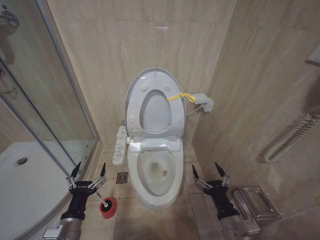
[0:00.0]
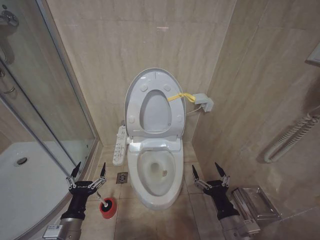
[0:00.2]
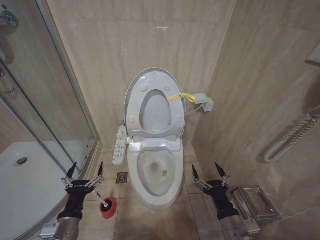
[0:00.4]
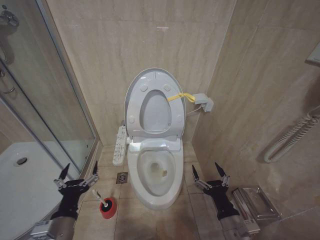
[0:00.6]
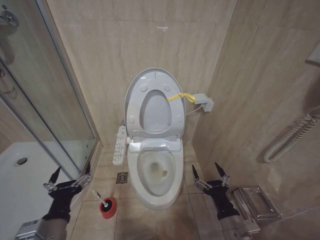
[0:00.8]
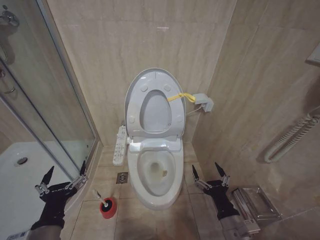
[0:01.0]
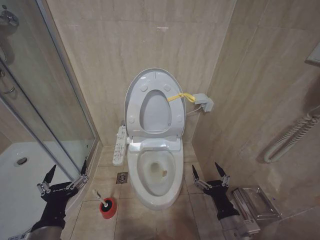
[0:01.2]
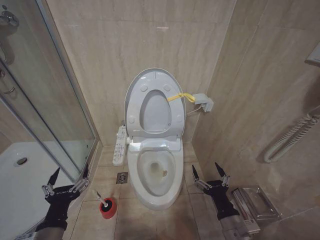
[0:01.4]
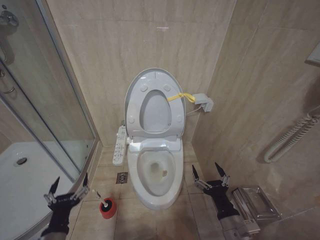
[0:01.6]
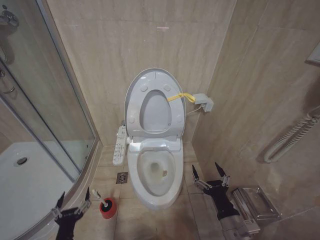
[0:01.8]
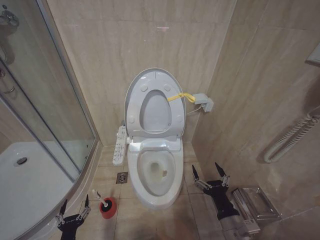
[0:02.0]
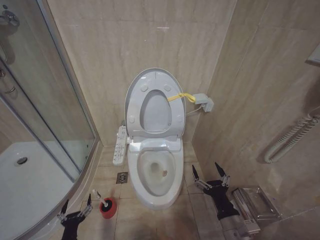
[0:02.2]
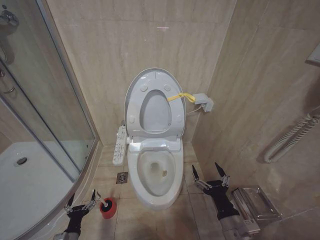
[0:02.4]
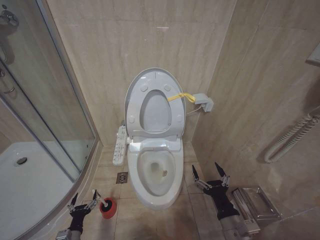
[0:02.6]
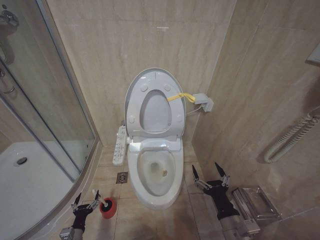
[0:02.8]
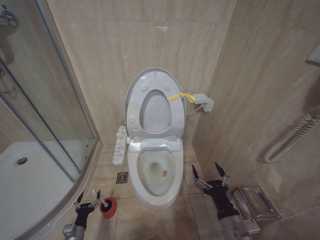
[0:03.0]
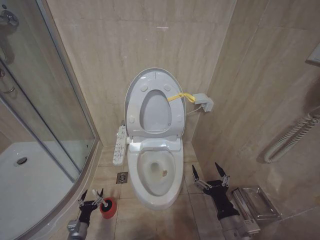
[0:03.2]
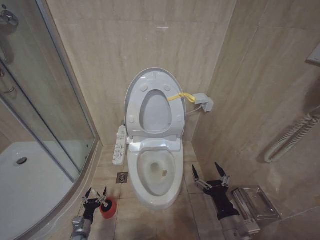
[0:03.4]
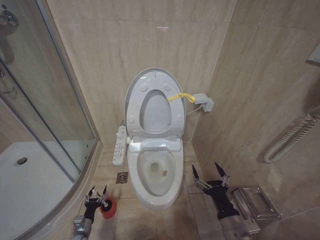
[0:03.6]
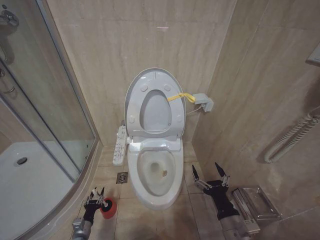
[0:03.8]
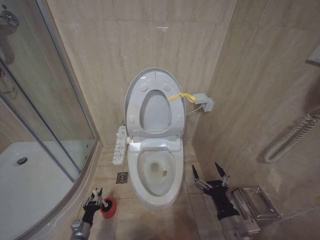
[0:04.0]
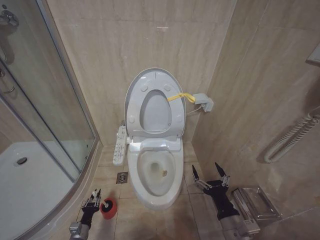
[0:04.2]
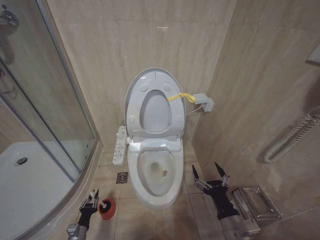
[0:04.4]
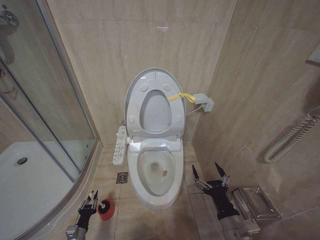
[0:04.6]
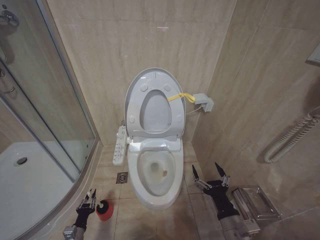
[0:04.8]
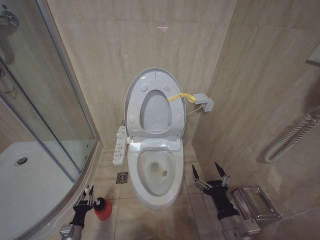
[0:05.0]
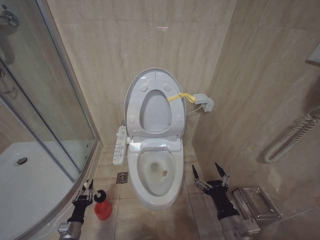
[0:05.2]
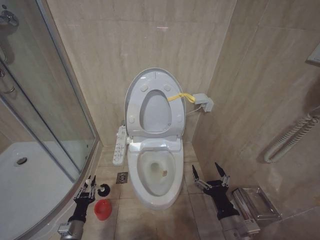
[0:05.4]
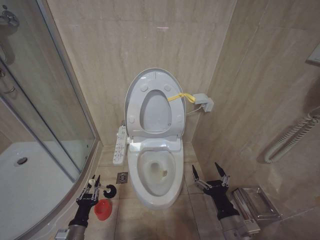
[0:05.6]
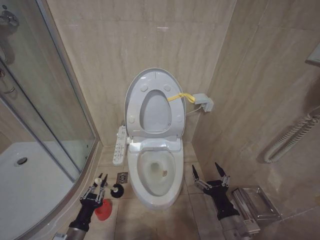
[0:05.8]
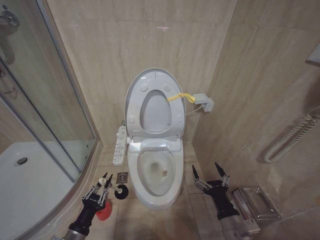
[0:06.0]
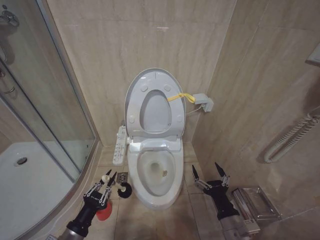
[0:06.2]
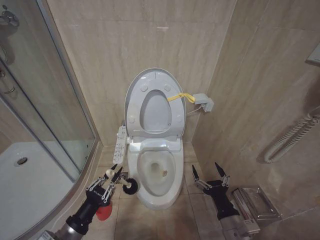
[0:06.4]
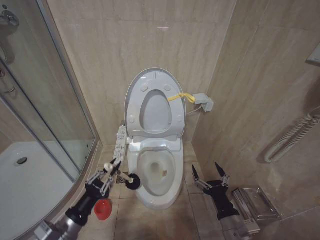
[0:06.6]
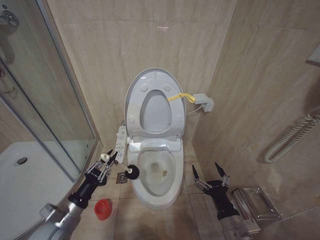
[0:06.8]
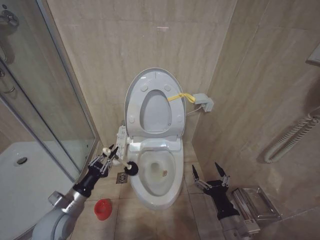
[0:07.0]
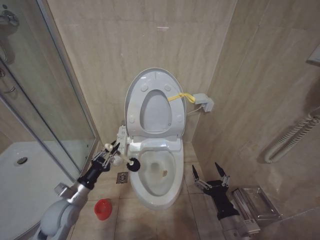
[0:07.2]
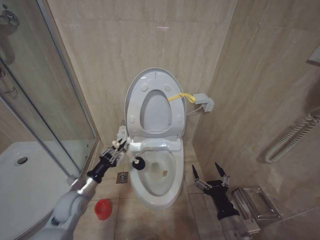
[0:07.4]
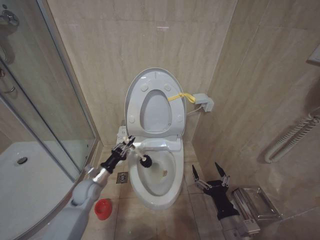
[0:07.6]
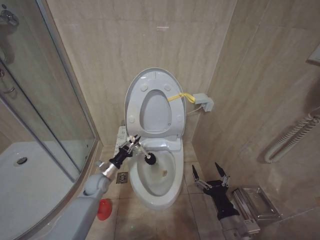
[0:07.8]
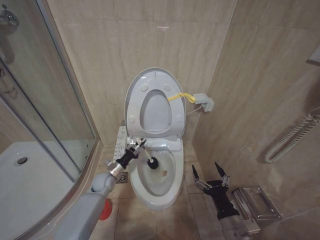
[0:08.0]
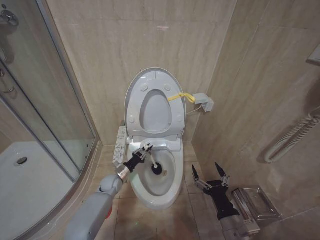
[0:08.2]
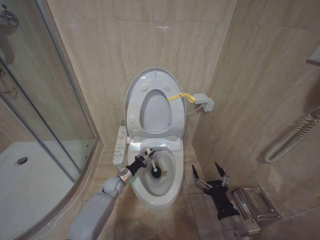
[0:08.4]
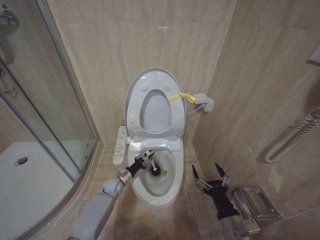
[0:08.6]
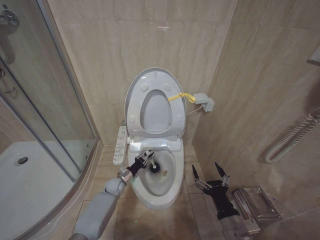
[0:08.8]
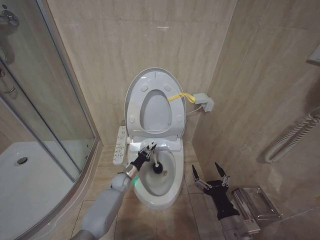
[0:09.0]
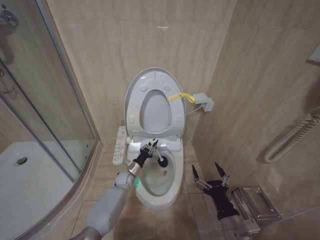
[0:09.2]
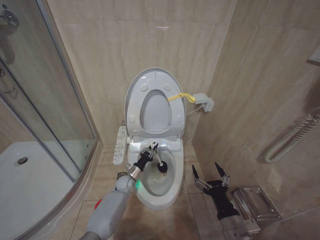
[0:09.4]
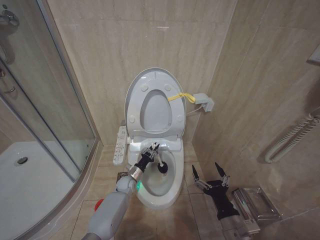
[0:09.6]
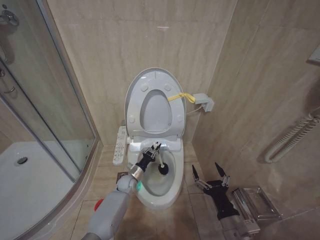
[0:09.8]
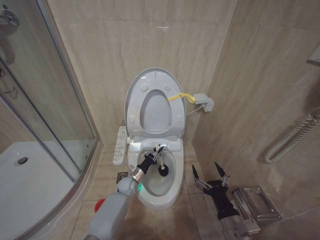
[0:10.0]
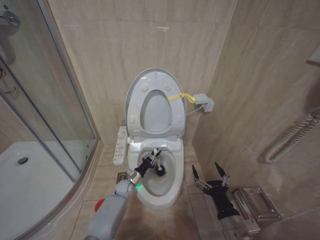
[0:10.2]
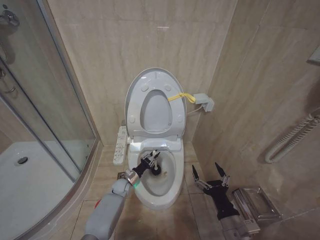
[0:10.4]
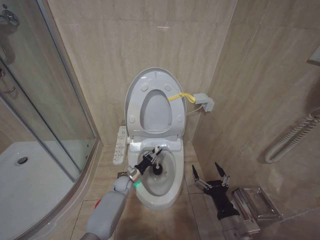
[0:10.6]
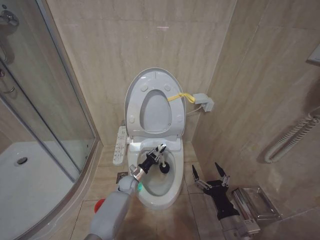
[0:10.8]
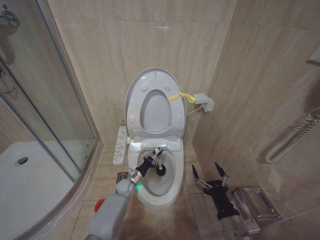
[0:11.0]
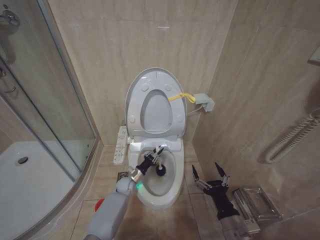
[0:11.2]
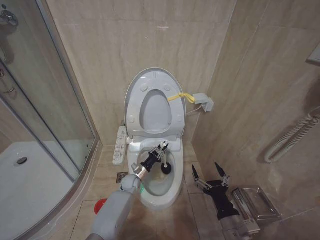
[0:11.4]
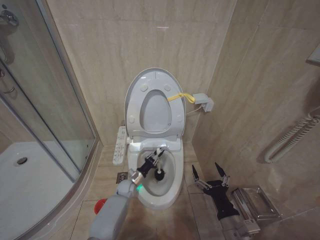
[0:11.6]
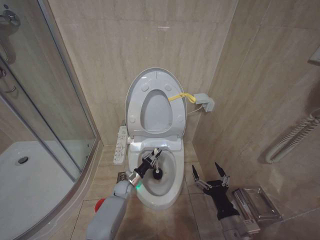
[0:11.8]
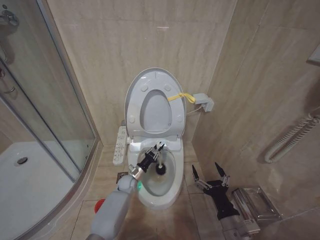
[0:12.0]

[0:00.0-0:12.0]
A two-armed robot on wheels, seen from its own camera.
Task of the whole recording: Open the toilet lid, clean the toilet bowl with a toilet brush, close the toilet lid, and flush.
0:00.0 to 0:01.6: The left gripper reaches some 10 cm upward, then returns.
0:01.6 to 0:03.0: The left gripper shifts approximately 25 cm downward.
0:03.0 to 0:04.4: The left gripper closes its fingers.
0:04.4 to 0:06.0: The left gripper goes approximately 20 cm upward.
0:06.0 to 0:07.6: The left gripper moves forward, some 20 cm.
0:07.6 to 0:09.0: The left gripper heads downward, forward and to the right, covering approximately 20 cm.
0:09.0 to 0:10.4: The grippers make only small movements.

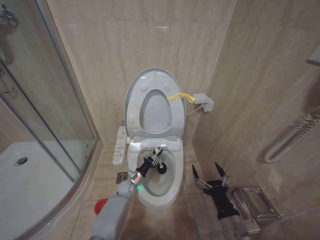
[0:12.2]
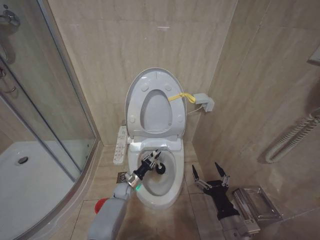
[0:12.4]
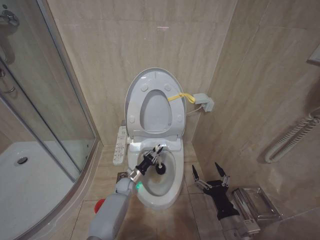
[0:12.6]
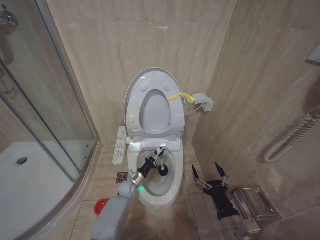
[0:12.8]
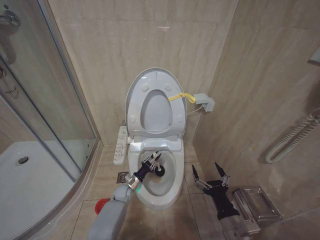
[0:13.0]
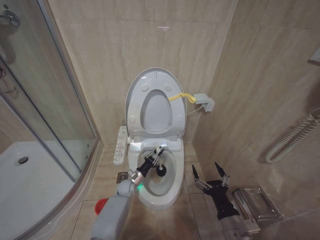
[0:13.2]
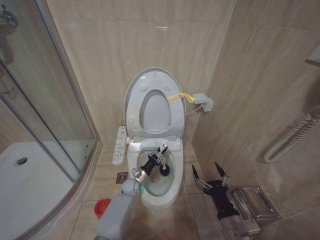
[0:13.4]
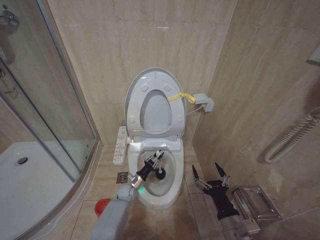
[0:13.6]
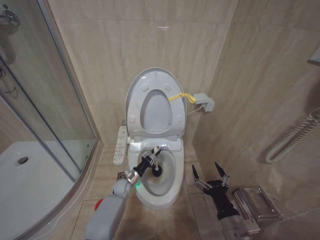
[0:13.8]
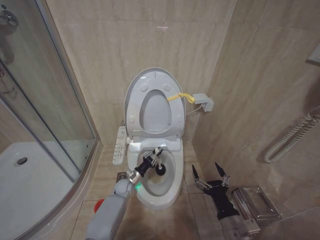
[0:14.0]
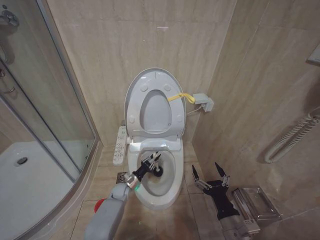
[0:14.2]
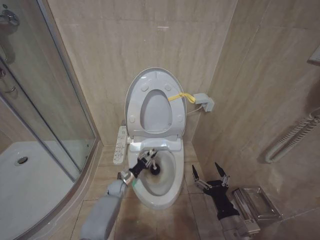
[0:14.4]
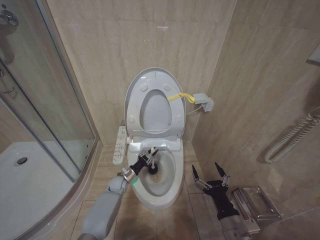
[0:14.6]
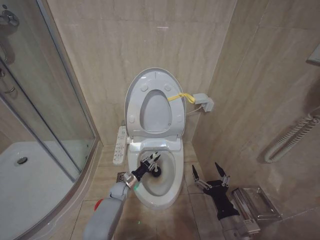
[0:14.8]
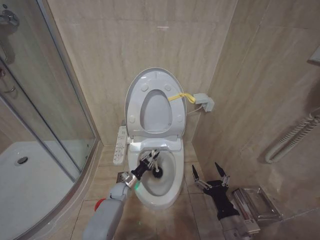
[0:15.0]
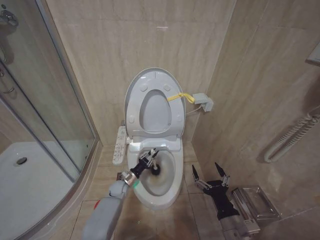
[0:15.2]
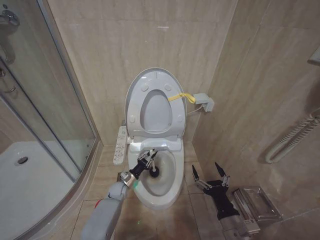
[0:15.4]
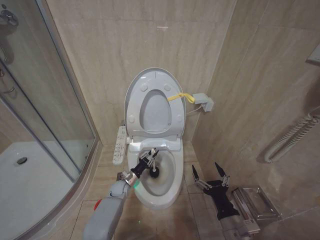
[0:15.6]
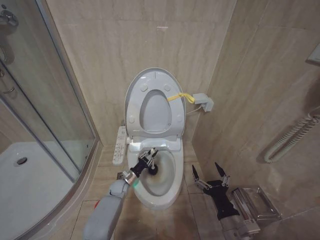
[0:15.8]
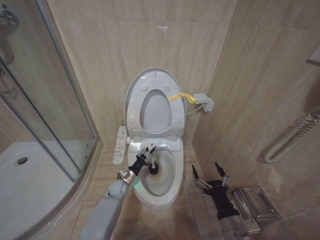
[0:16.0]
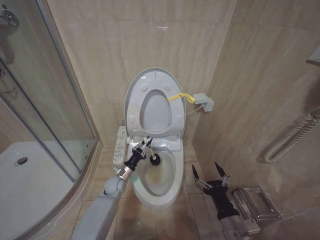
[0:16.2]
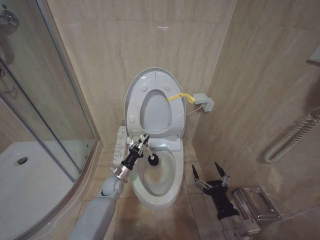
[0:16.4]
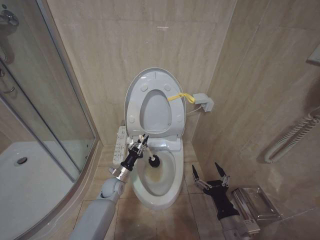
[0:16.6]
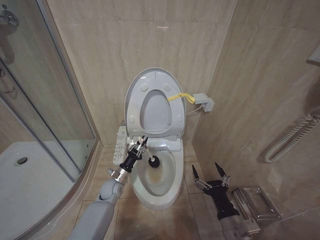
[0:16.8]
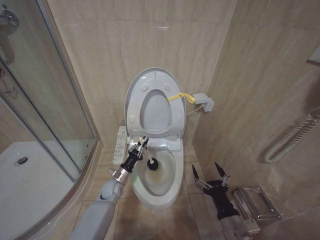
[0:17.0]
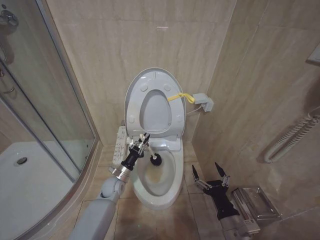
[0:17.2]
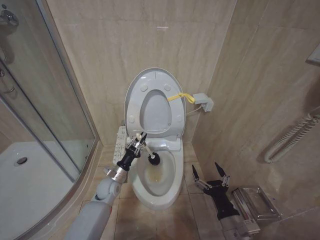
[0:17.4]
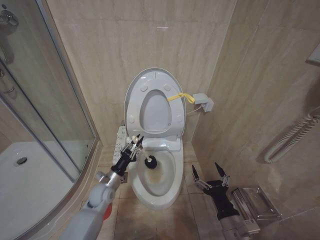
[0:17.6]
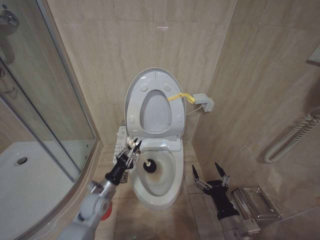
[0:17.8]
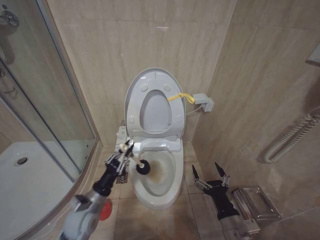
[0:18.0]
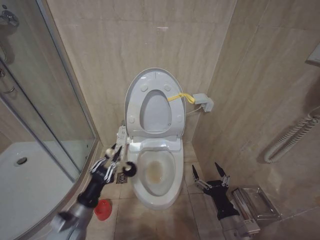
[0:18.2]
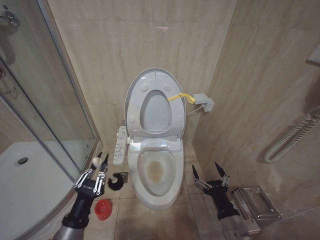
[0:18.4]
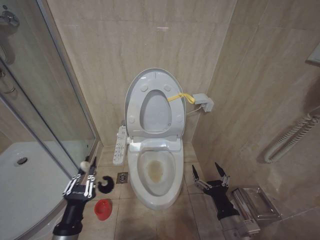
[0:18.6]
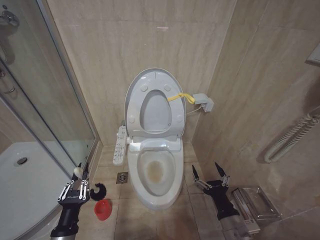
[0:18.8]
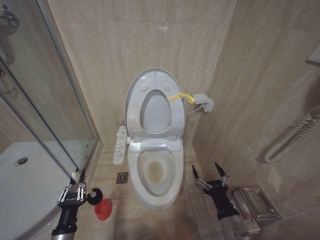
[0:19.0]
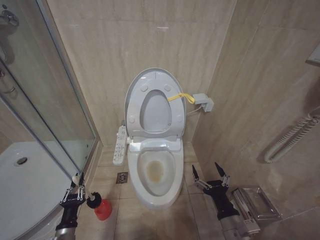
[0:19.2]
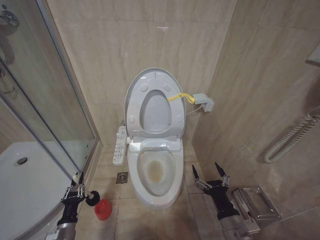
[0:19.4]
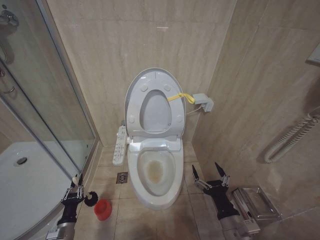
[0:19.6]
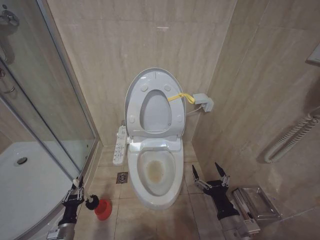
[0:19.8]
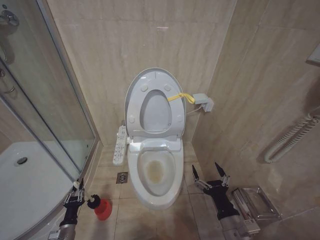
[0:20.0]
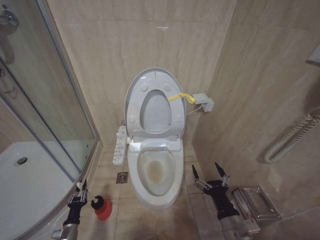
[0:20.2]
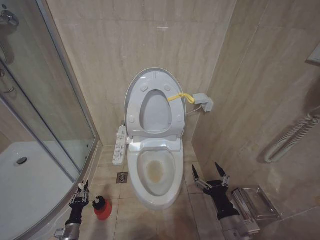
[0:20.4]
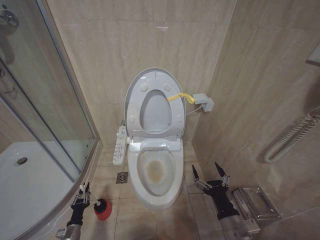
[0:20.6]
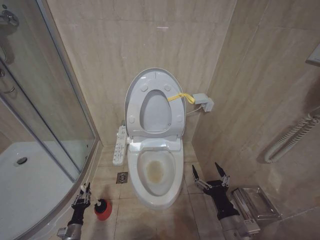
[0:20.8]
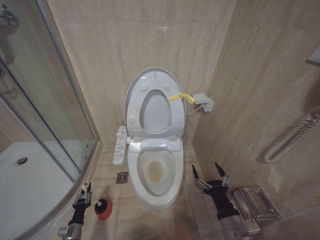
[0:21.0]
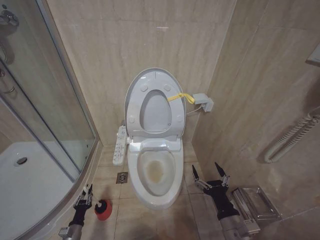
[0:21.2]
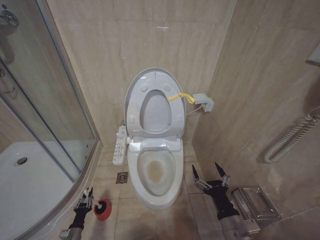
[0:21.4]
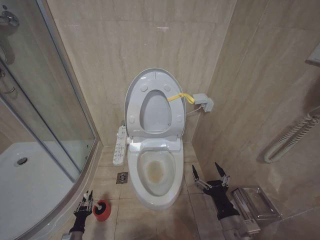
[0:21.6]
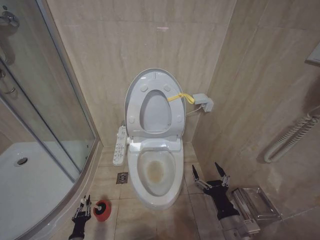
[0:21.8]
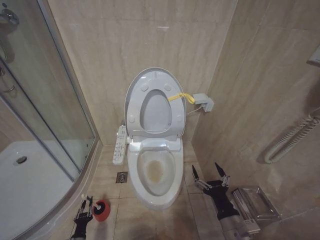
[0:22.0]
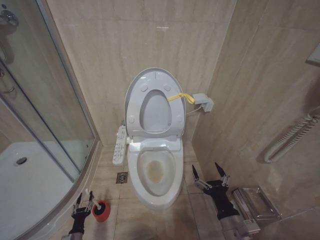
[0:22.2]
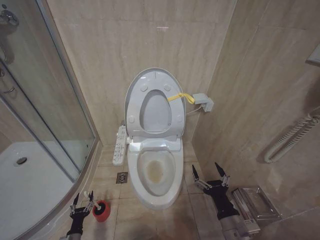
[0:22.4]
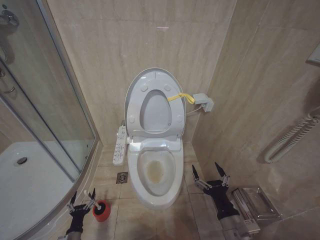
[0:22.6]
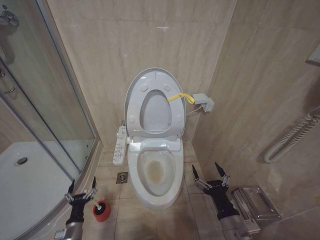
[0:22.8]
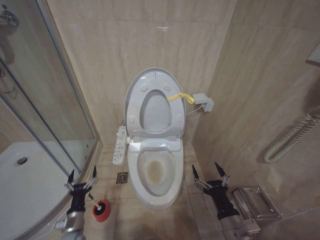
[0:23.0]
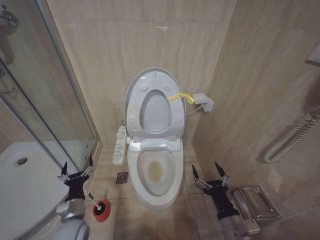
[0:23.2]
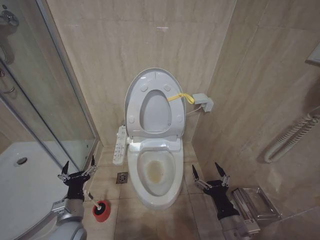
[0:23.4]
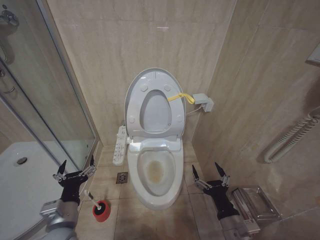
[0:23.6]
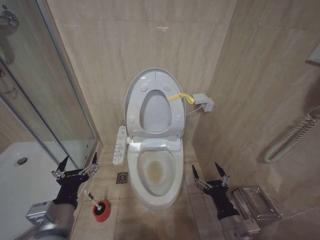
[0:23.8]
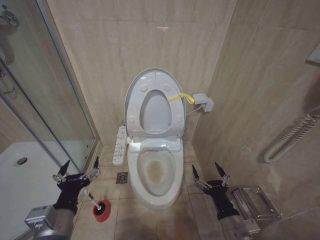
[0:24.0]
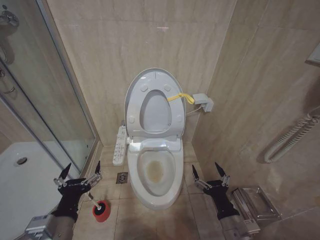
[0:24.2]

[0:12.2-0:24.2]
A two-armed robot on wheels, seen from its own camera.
Task of the whole recording: Open the toilet lid, clean the toilet bowl with a toilet brush, close the toilet lid, and flush.
0:12.2 to 0:15.2: The grippers stay close to where they were, moving slightly.
0:15.2 to 0:16.6: The left gripper shifts some 5 cm upward.
0:16.6 to 0:18.2: The left gripper shifts about 20 cm backward and upward.
0:18.2 to 0:19.8: The left gripper heads downward and to the left, covering some 20 cm.
0:19.8 to 0:21.2: The left gripper travels downward by approximately 10 cm.
0:21.2 to 0:22.6: The left gripper opens up.
0:22.6 to 0:24.2: The left gripper heads upward, covering some 40 cm.
